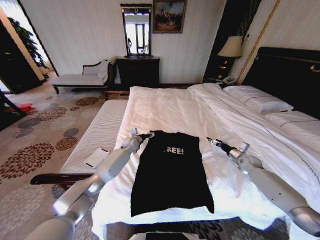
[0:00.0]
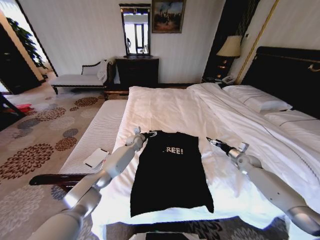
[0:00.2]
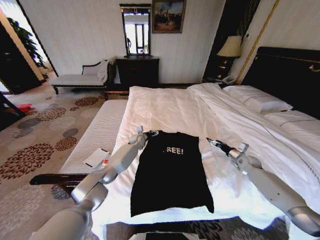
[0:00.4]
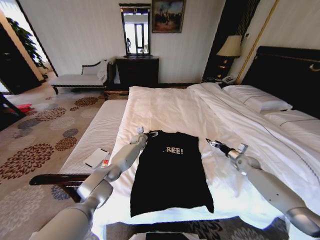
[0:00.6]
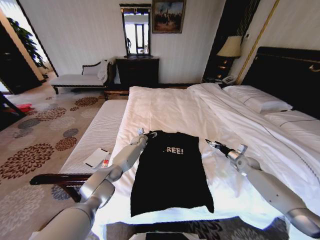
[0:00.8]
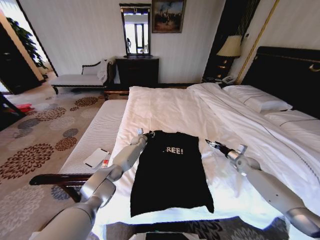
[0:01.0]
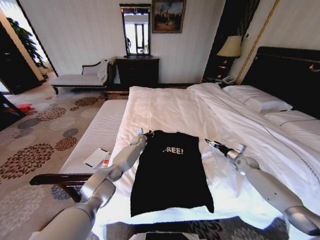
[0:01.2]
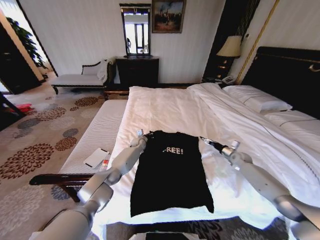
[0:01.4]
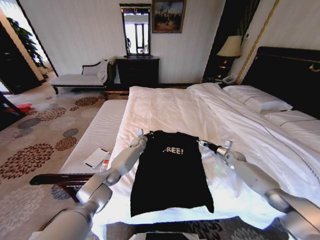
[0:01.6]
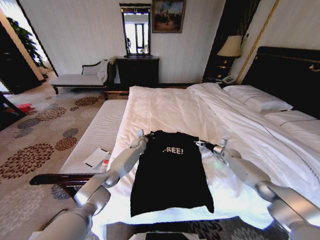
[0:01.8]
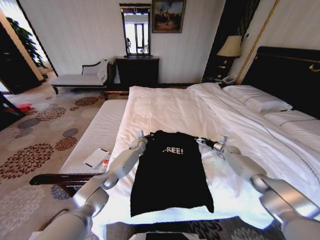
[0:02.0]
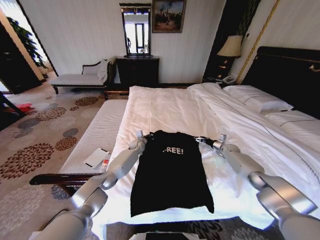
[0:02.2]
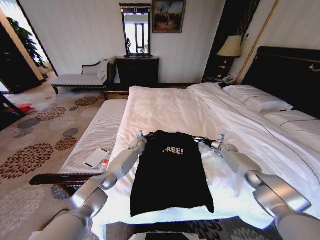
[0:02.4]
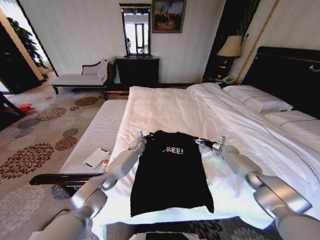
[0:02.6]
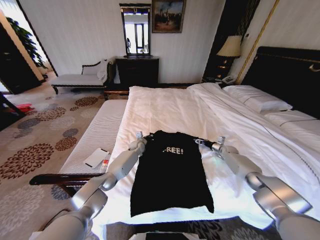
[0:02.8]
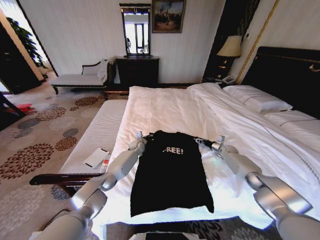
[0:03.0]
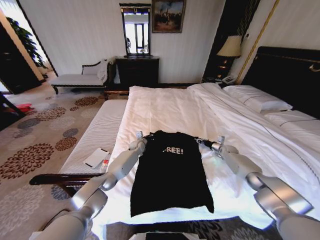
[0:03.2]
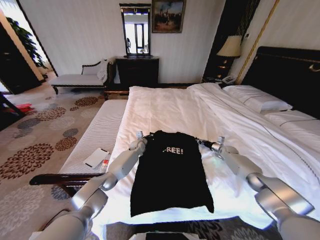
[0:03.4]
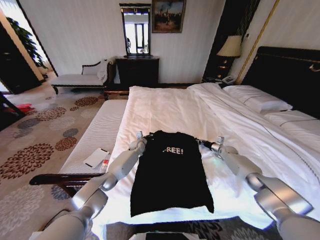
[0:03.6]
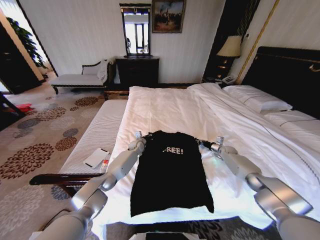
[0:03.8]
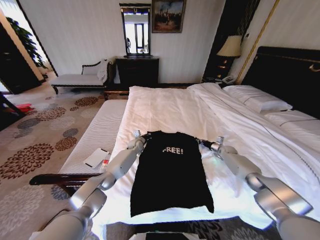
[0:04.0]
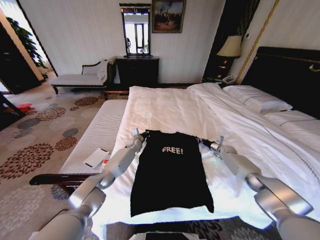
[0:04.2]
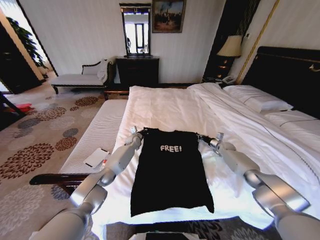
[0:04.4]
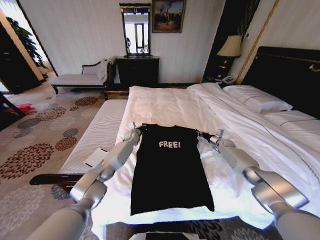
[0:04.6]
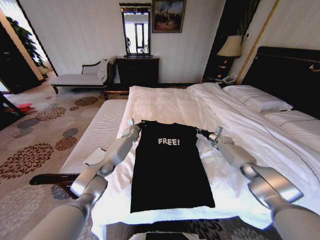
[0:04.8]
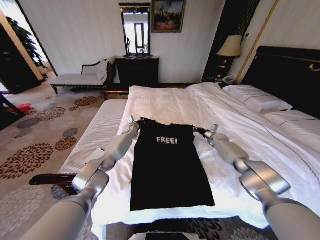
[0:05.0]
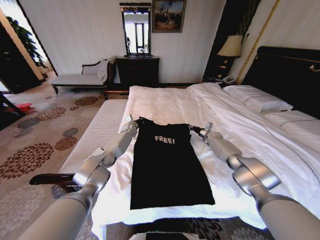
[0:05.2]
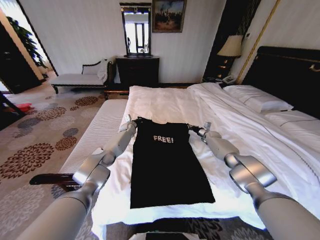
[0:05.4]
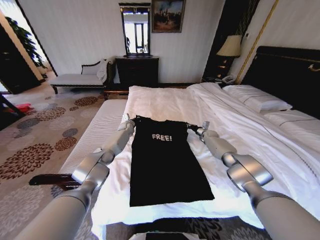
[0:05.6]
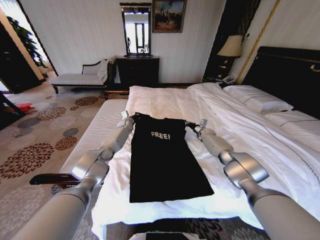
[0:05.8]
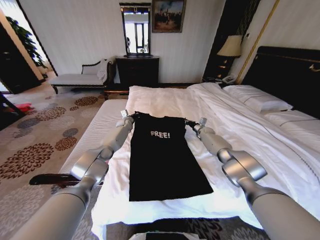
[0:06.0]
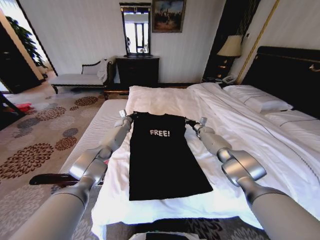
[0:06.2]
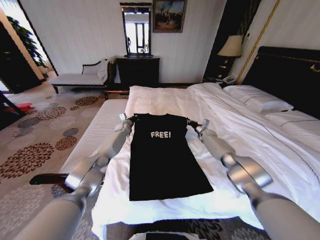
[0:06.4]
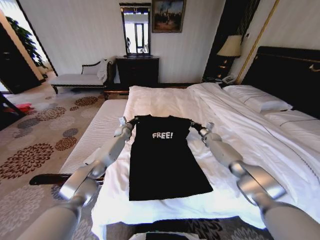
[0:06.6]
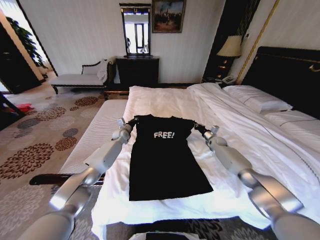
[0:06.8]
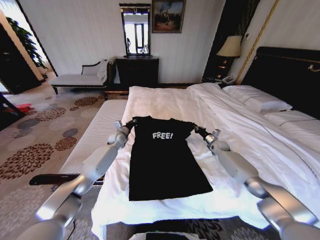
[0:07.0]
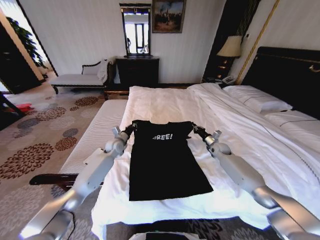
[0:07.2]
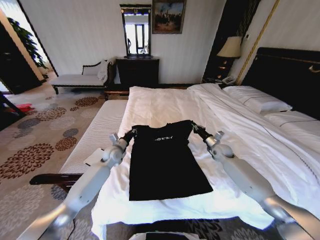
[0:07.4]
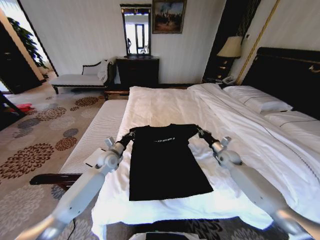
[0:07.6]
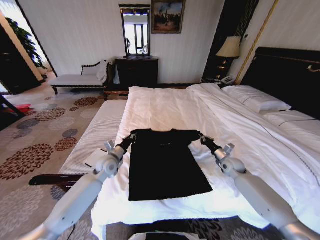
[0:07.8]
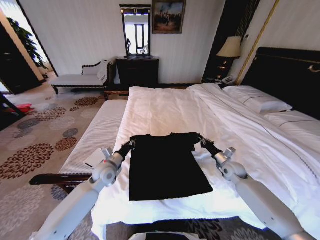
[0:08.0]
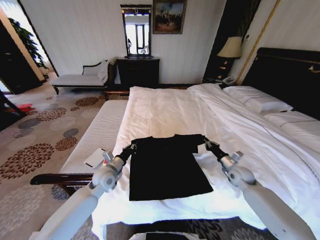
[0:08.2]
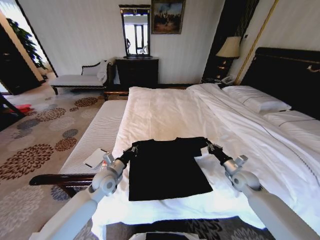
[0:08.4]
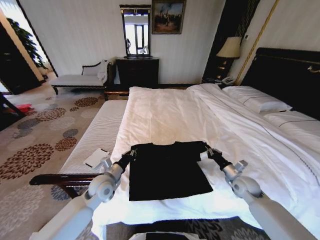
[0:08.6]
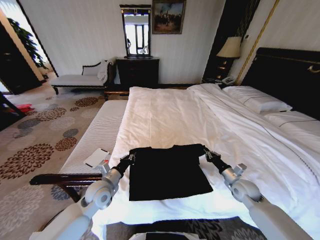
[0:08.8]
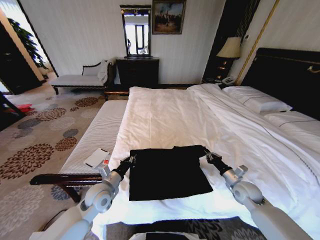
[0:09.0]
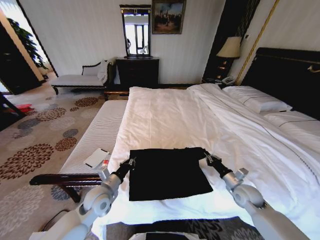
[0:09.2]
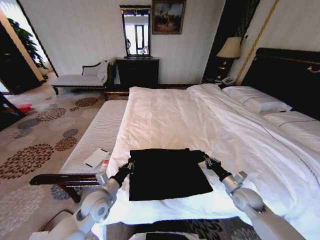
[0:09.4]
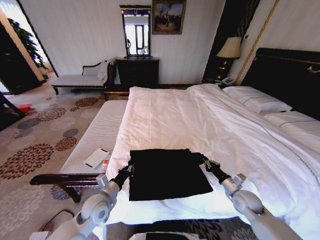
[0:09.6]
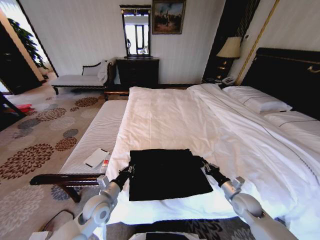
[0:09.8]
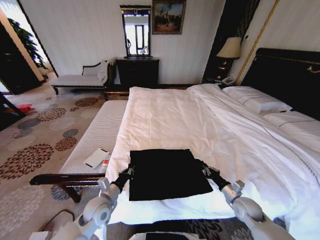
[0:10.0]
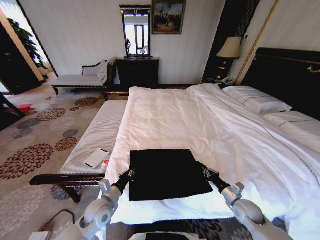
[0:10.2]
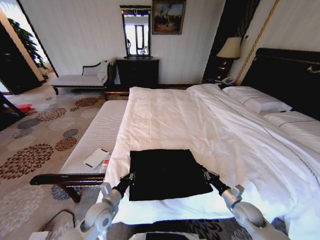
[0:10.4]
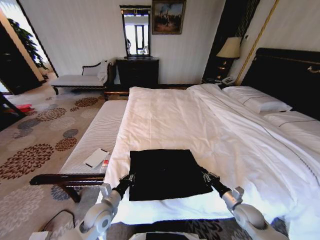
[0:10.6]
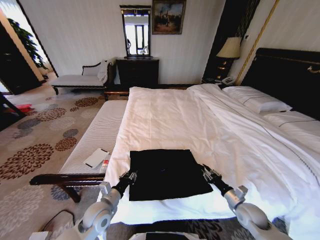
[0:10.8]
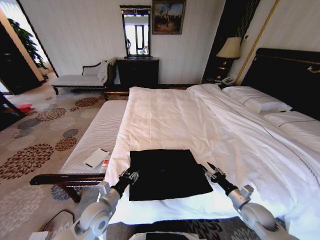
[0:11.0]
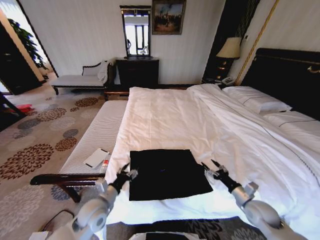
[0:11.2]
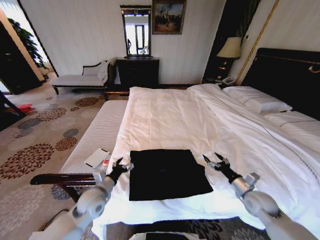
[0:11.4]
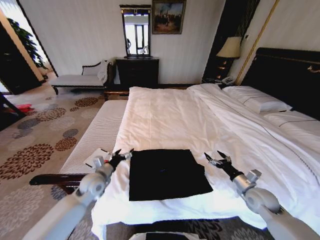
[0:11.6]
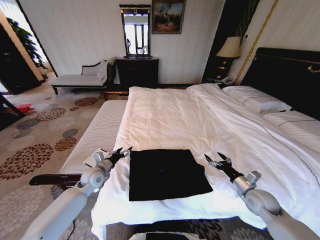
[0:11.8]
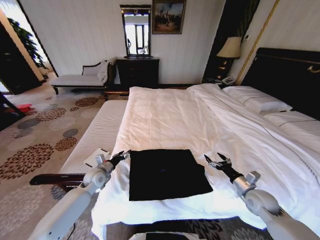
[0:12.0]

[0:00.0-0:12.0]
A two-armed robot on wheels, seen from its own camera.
Task of the whole recording: Fold the clothes on the bed.
0:00.0 to 0:01.6: The right gripper is displaced forward by roughly 5 cm, while the left gripper moves roughly 5 cm, and closes up.
0:01.6 to 0:03.0: The right gripper goes roughly 5 cm forward, and closes its fingers.
0:03.0 to 0:04.4: The right gripper closes its fingers.
0:04.4 to 0:06.0: The right gripper goes about 15 cm to the left, forward and upward, while the left gripper is displaced forward, upward and to the left by about 15 cm.
0:06.0 to 0:07.6: Both grippers travel together backward, roughly 20 cm.
0:07.6 to 0:09.0: Both grippers travel together backward, roughly 15 cm.
0:09.0 to 0:10.4: The right gripper moves backward and downward, some 10 cm; the left gripper shifts about 5 cm downward and backward.
0:10.4 to 0:12.0: The left gripper shifts approximately 15 cm forward and to the left, and opens its fingers, while the right gripper moves upward, some 5 cm, and opens its fingers.

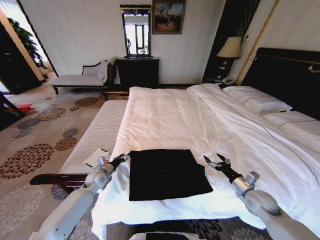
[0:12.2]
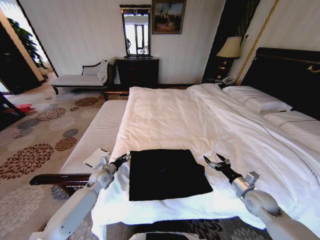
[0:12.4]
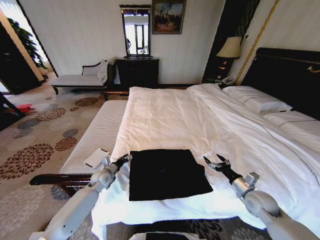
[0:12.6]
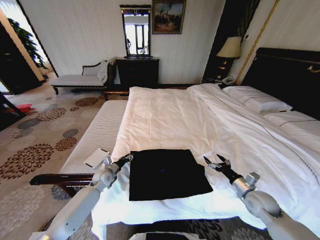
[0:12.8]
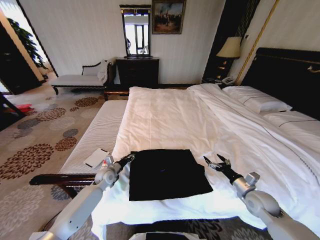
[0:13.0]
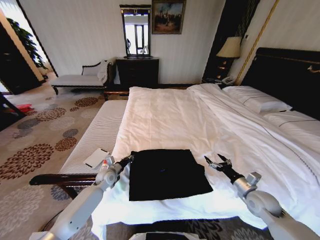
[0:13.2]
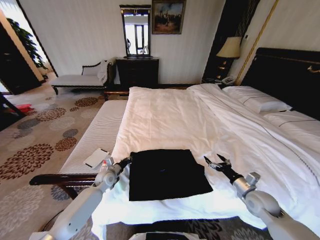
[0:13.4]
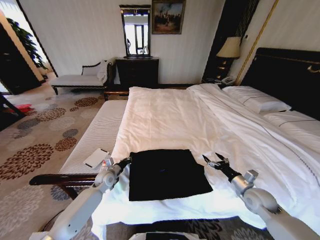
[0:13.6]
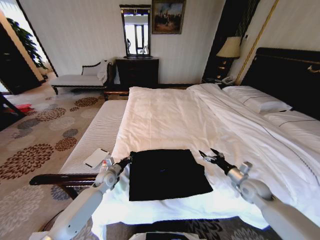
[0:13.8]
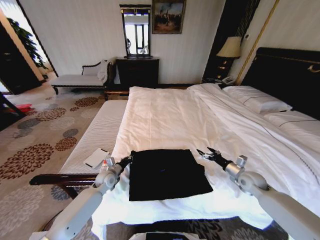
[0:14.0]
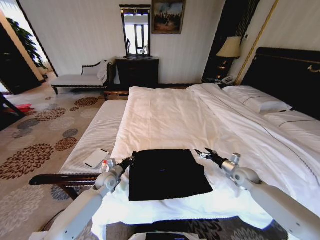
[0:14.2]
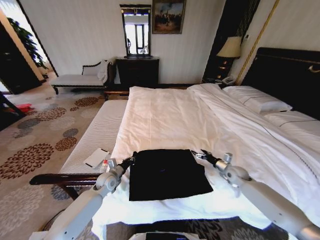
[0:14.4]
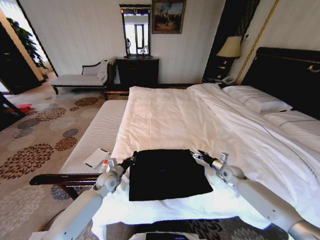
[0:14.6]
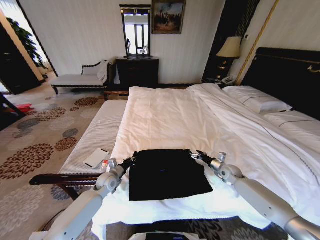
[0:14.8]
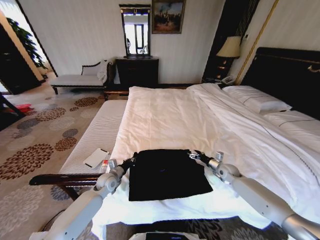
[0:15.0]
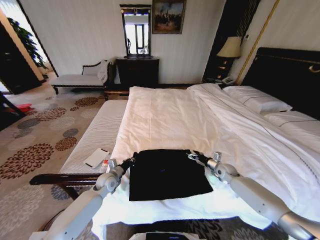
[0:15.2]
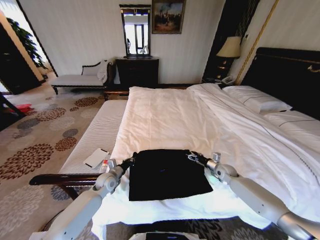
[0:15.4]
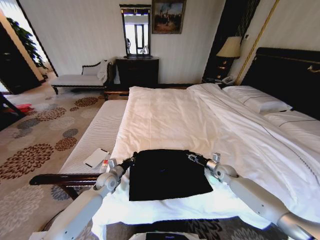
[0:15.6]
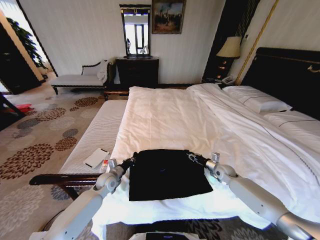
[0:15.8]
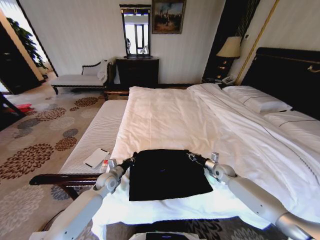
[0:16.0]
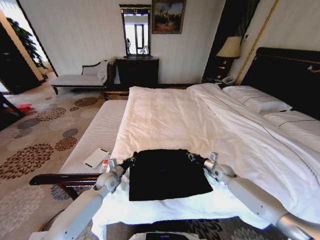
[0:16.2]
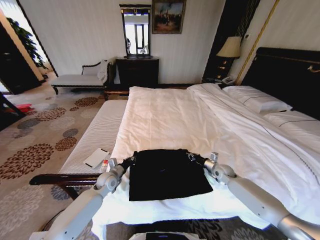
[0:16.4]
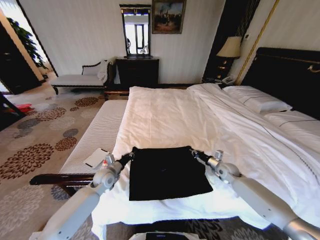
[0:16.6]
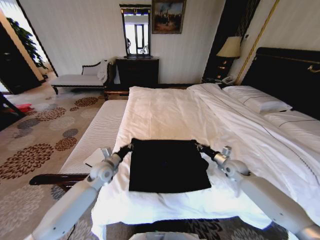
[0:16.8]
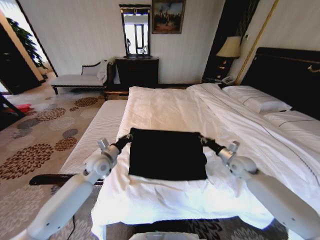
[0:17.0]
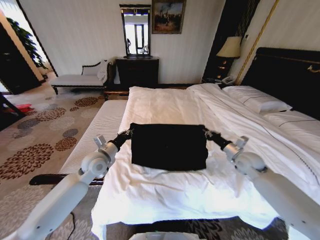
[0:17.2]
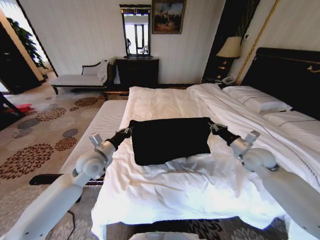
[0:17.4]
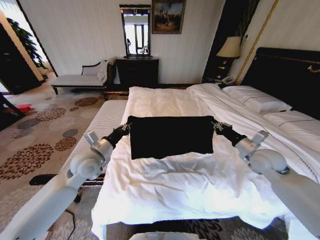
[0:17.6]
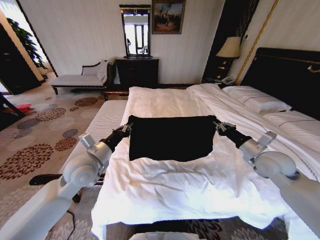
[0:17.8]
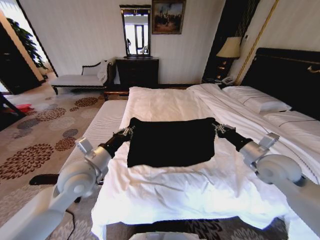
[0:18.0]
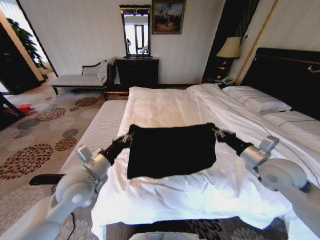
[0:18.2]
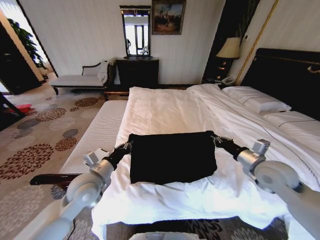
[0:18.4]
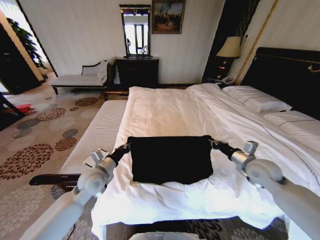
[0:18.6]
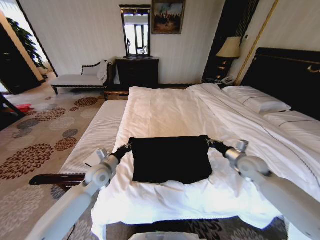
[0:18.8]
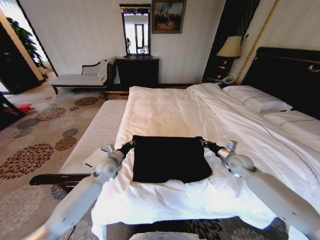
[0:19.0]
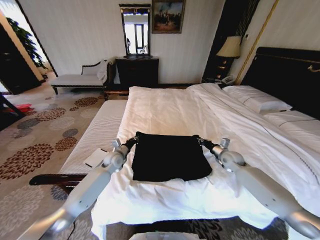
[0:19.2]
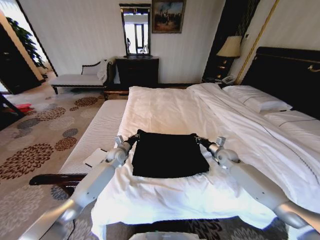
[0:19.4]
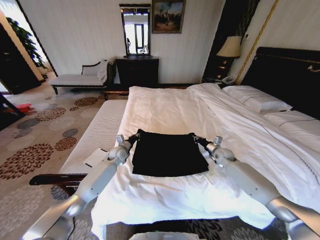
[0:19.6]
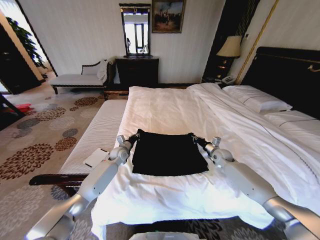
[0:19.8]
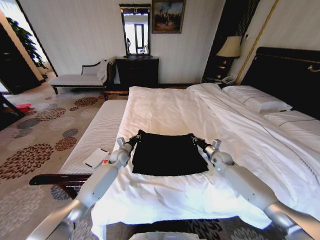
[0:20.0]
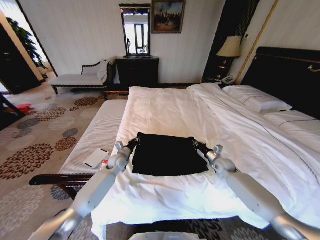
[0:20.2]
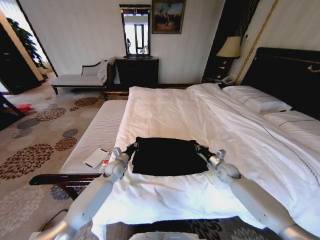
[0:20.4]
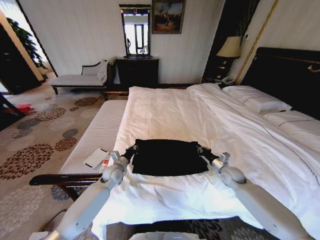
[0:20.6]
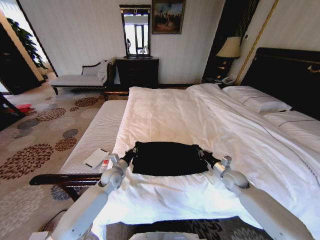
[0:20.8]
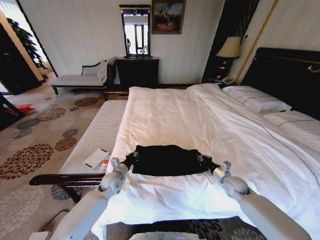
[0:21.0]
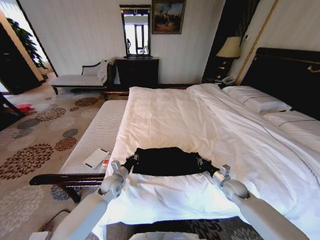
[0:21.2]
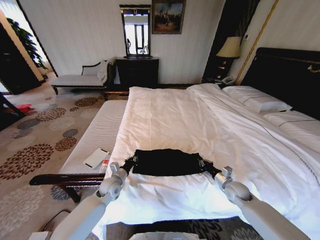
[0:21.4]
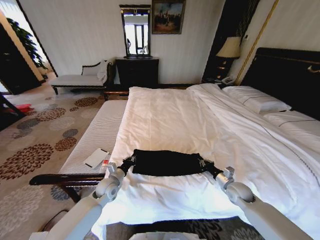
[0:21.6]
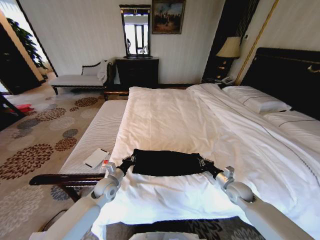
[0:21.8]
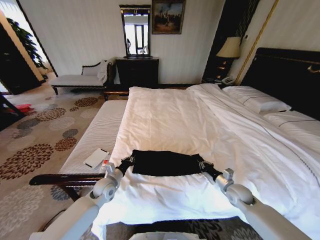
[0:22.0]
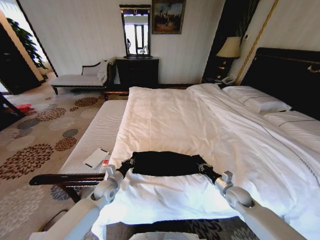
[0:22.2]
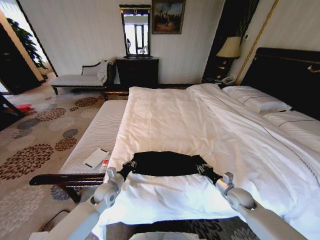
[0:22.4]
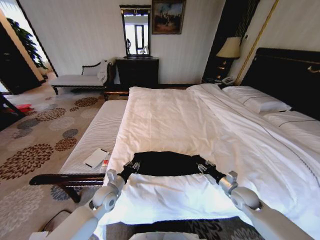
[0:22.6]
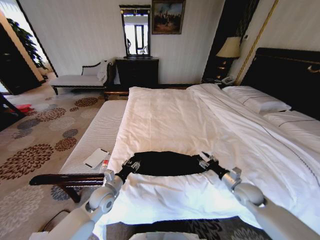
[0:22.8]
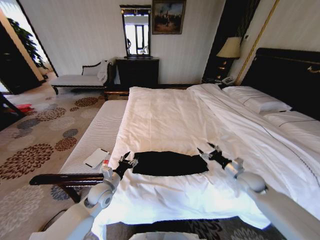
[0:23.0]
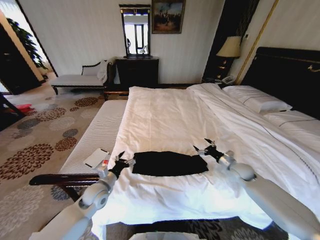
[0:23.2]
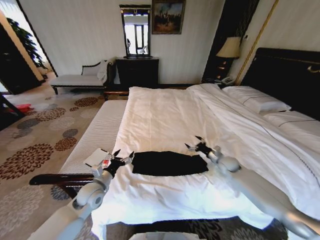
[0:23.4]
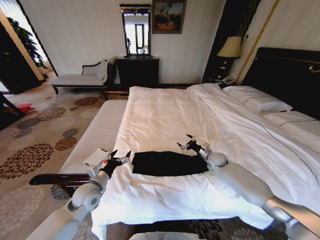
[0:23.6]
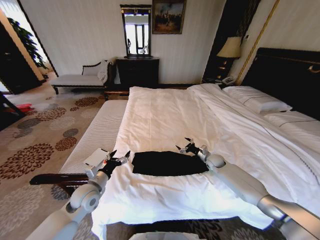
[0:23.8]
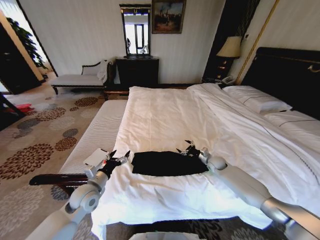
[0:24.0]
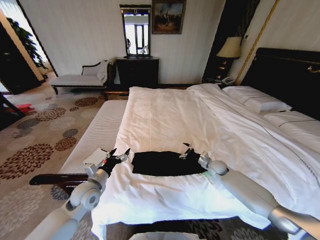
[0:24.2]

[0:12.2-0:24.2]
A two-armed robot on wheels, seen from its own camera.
Task of the whole recording: Fold the clothes on the bed.
0:12.2 to 0:13.8: The right gripper moves some 5 cm; the left gripper closes up.
0:13.8 to 0:15.2: The right gripper moves forward and downward, roughly 15 cm.
0:15.2 to 0:16.6: The right gripper closes.
0:16.6 to 0:18.2: Both grippers move upward and backward, approximately 25 cm.
0:18.2 to 0:19.8: The two grippers go roughly 30 cm forward and downward.
0:19.8 to 0:21.2: The two grippers go approximately 15 cm backward.
0:21.2 to 0:22.6: The left gripper is displaced backward by approximately 5 cm.
0:22.6 to 0:24.2: The left gripper moves upward and to the left, about 10 cm, and opens its fingers, while the right gripper shifts approximately 15 cm forward, and opens its fingers.
